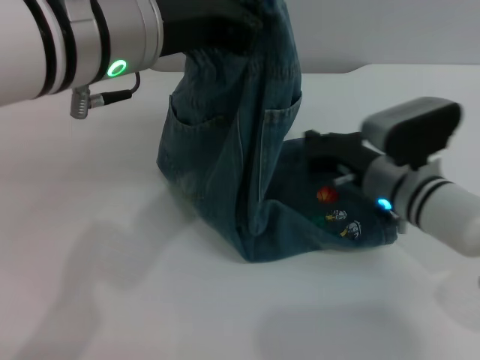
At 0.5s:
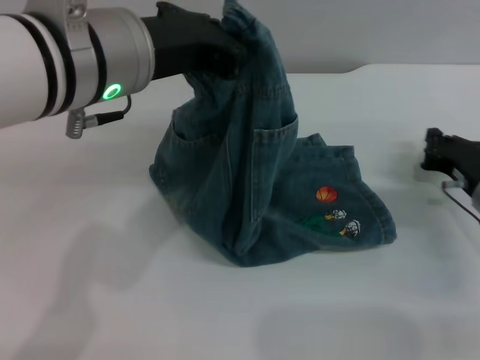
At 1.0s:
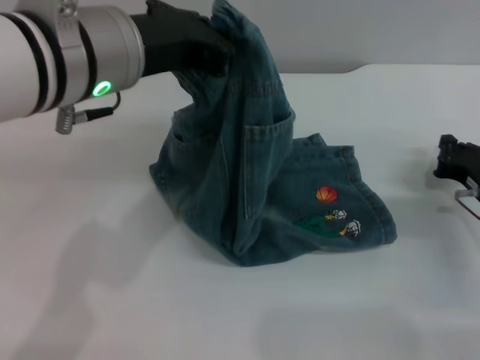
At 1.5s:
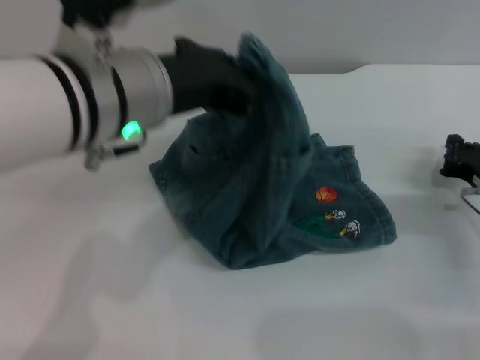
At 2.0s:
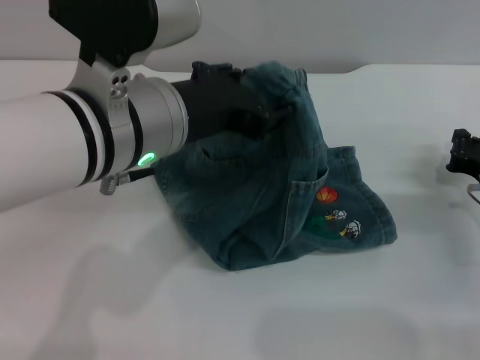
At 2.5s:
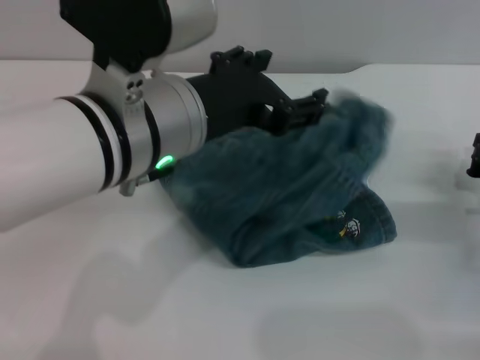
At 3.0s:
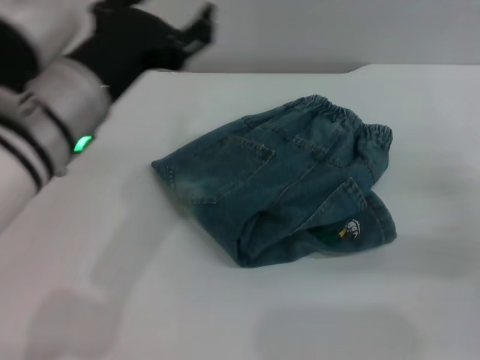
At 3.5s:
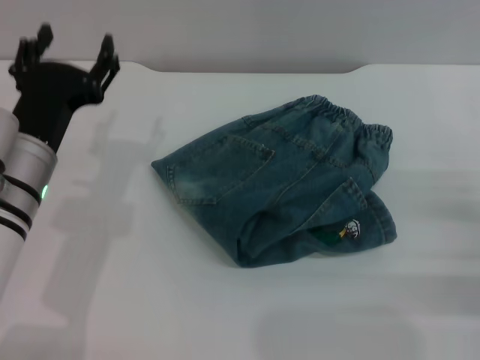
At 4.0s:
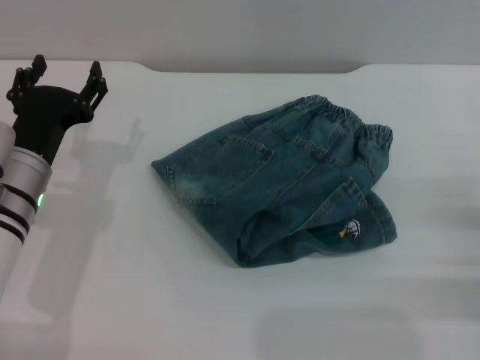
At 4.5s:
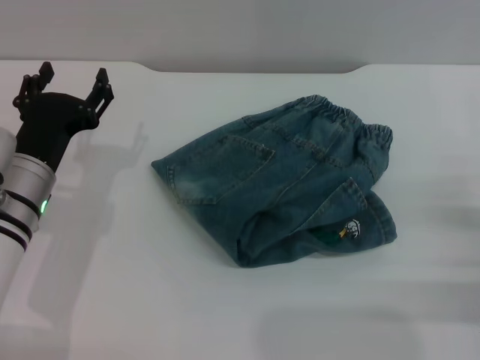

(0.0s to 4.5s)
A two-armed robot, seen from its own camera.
Step, 0.0s - 2.5s: Fold the pants from left to right with the left gripper.
0.0s - 2.0s: The right gripper shifts approximately 15 cm to the right. The left gripper travels downward by some 5 cm.
2.0s - 4.5s: The right gripper shifts roughly 10 cm backward, and opens its fingers; the left gripper moves downward and to the left, about 20 cm, and opens up.
